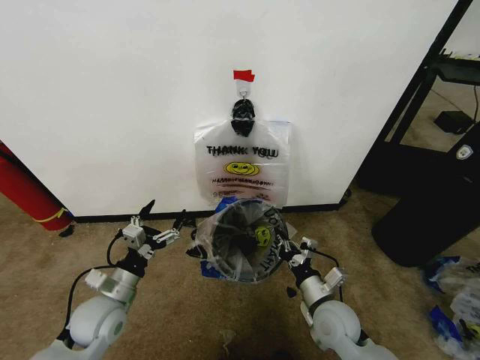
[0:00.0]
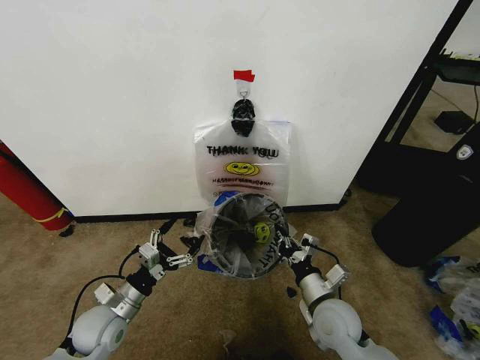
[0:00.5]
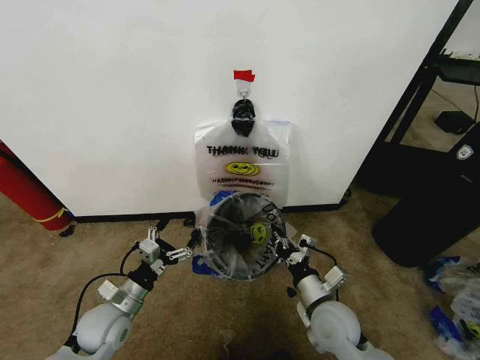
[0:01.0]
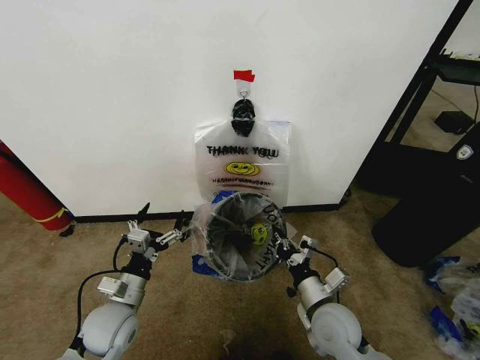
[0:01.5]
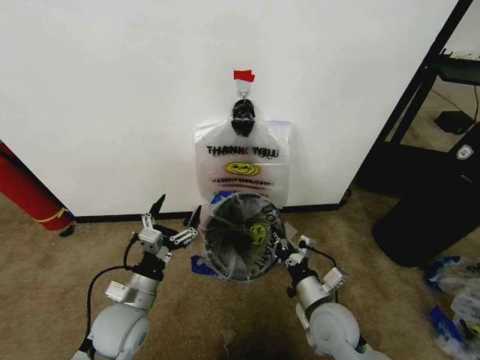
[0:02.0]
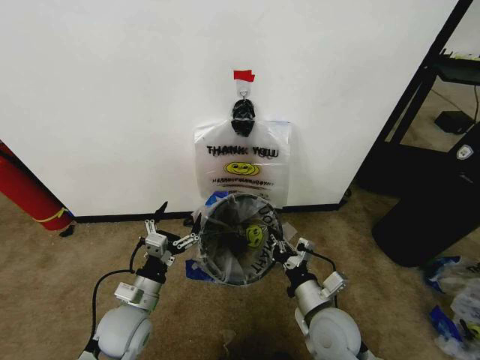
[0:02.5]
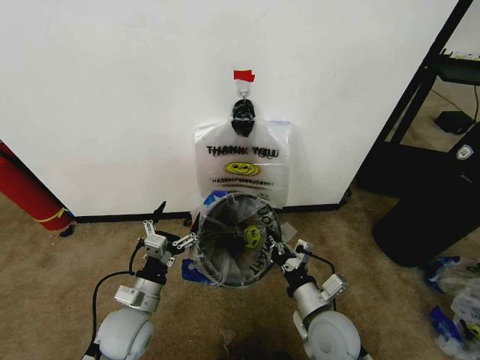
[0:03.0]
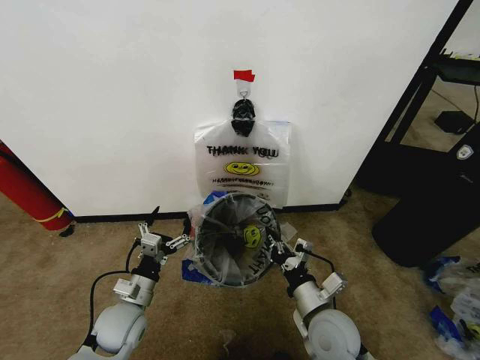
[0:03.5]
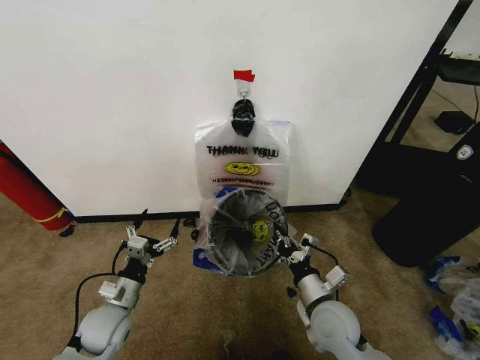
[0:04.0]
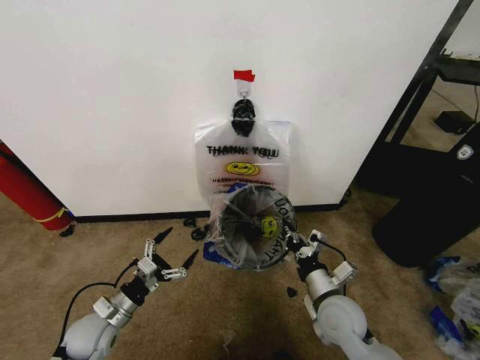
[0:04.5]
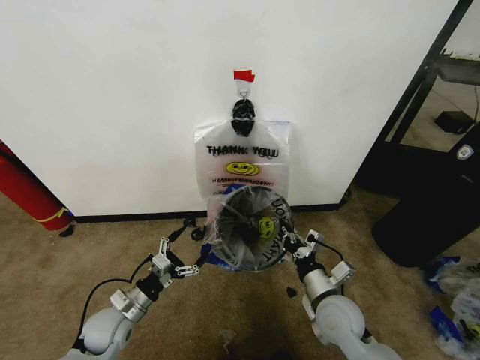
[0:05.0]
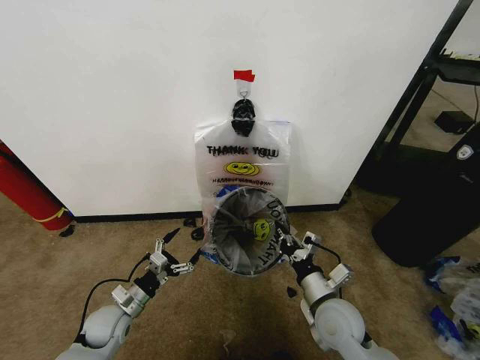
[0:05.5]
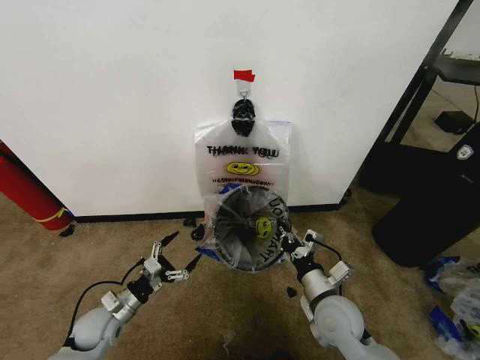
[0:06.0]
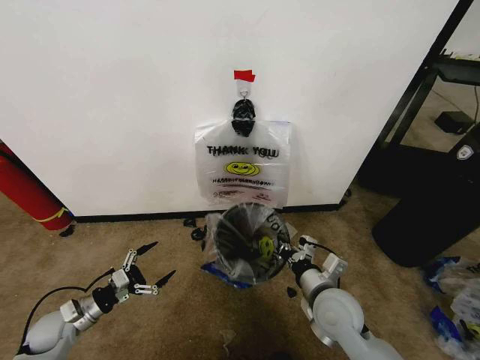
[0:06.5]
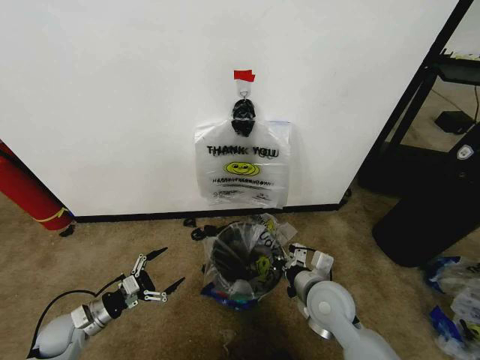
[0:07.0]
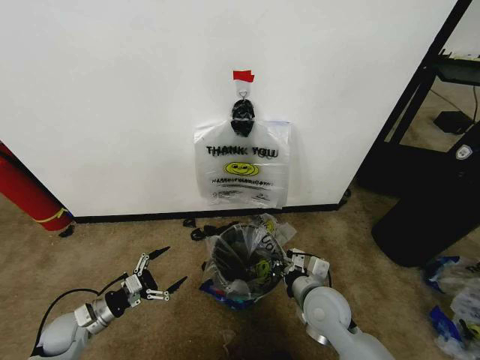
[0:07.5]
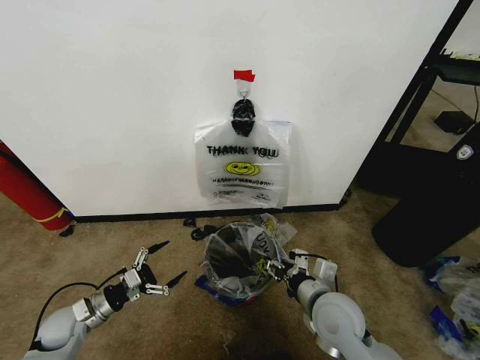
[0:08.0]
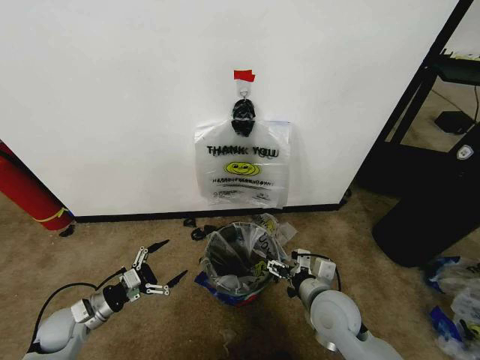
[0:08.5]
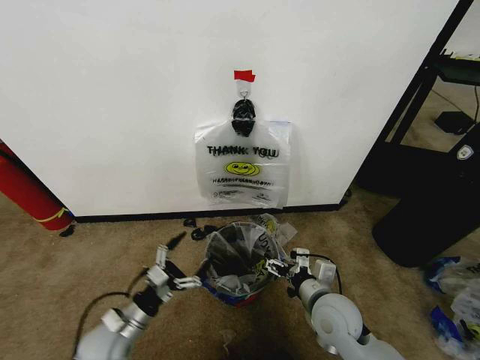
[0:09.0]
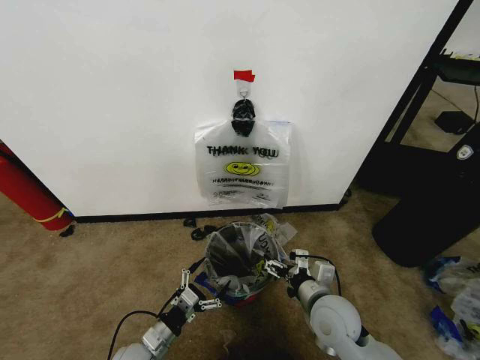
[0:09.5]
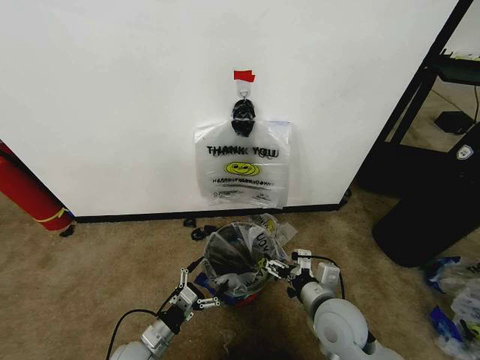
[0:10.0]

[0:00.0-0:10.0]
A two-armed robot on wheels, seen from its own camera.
Task of the whole recording: Pick up the garbage bag from the wall and place it over the trash bin.
0:00.0 to 0:02.0: The left gripper moves to the right, about 5 cm.
0:02.0 to 0:04.0: The left gripper heads to the left and downward, covering some 10 cm.
0:04.0 to 0:06.0: The left gripper goes about 5 cm downward and to the left.
0:06.0 to 0:08.0: The left gripper is displaced to the left by roughly 5 cm, while the right gripper opens its fingers.
0:08.0 to 0:10.0: The left gripper moves to the right and backward, roughly 15 cm; the right gripper opens its fingers.

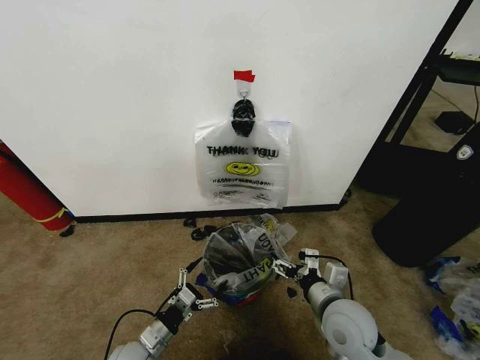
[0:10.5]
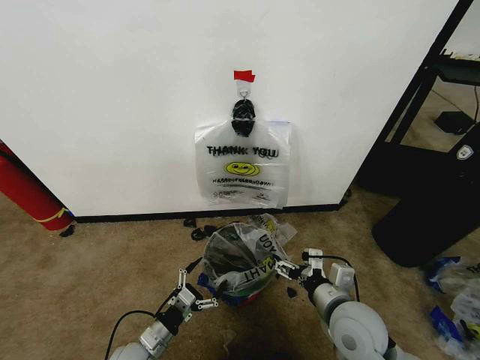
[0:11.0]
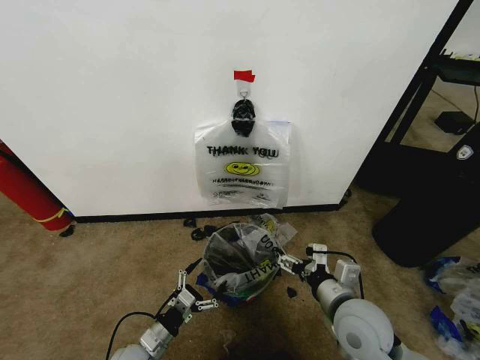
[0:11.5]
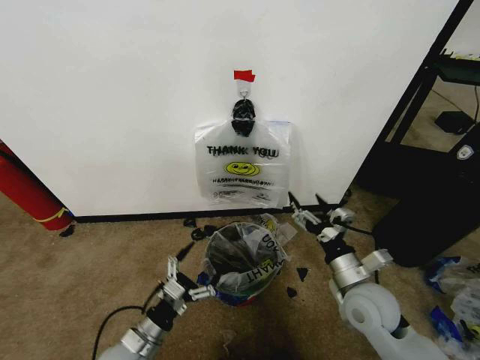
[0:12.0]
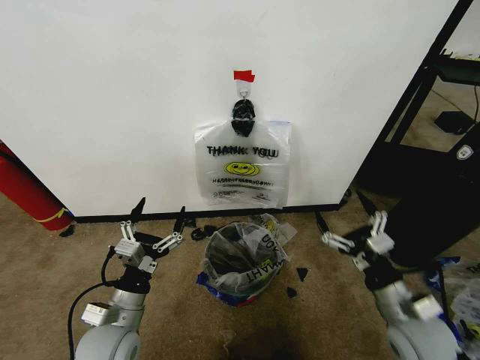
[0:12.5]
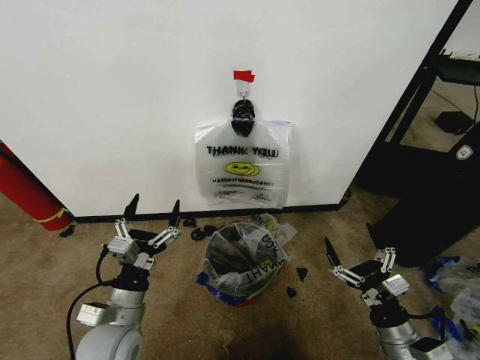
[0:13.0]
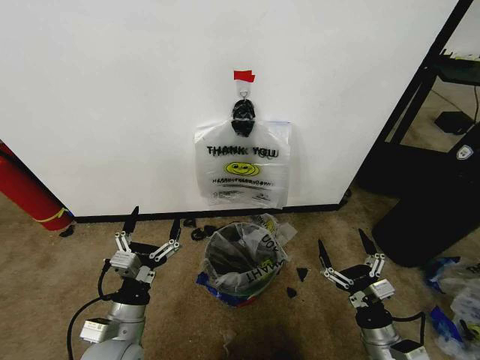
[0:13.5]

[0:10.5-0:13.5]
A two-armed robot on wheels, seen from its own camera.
Task of the whole recording: Pick up the garbage bag from the wall and place it over the trash bin.
0:10.5 to 0:12.0: The right gripper ends up about 5 cm from where it was.
0:12.0 to 0:13.5: The left gripper heads upward, covering about 10 cm. Meanwhile the right gripper goes some 15 cm backward, downward and to the right.
